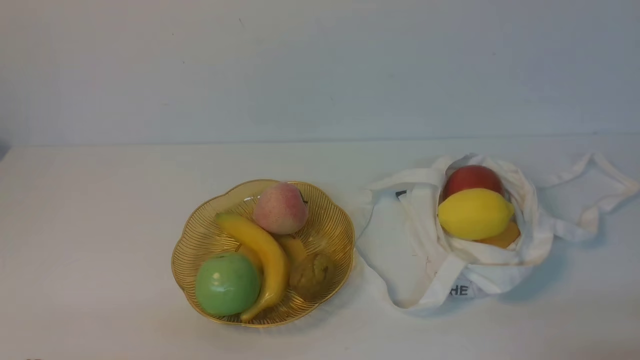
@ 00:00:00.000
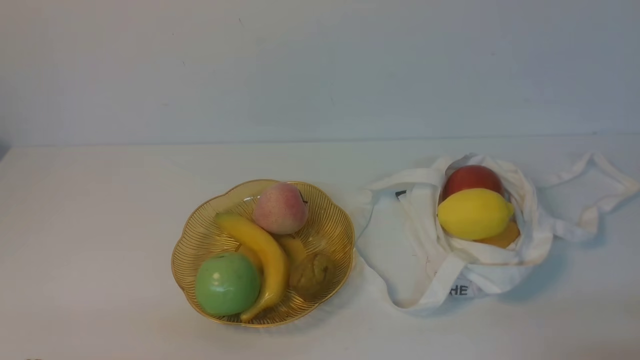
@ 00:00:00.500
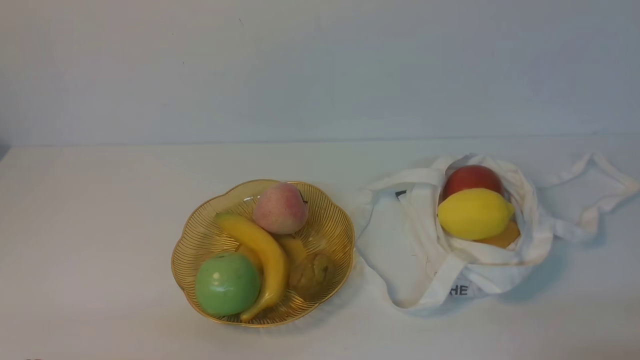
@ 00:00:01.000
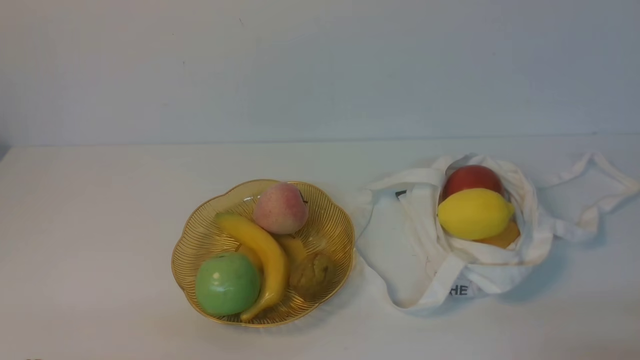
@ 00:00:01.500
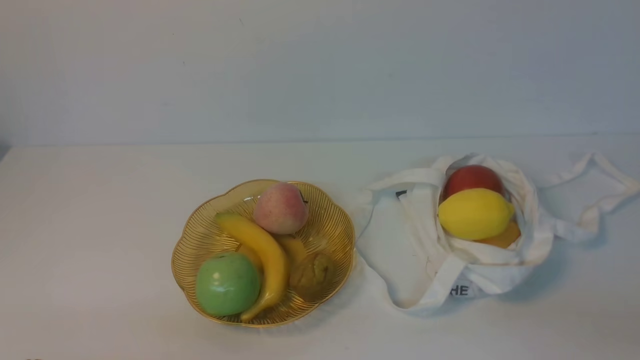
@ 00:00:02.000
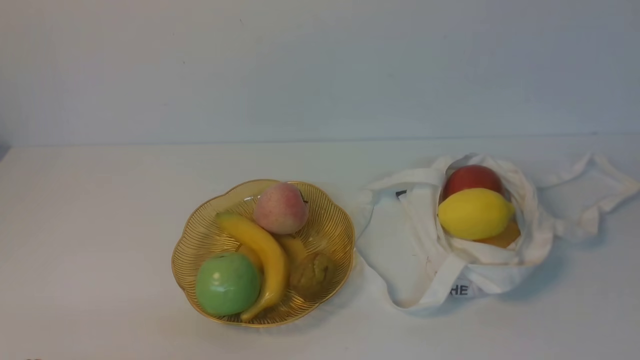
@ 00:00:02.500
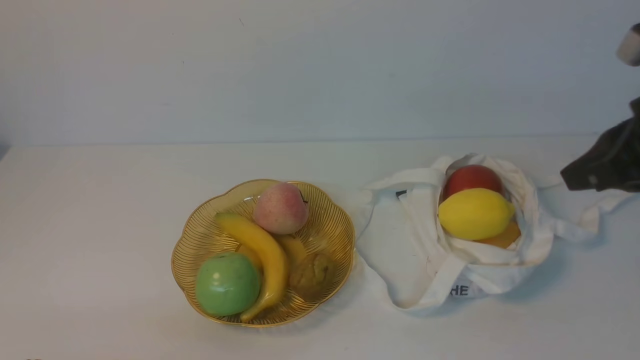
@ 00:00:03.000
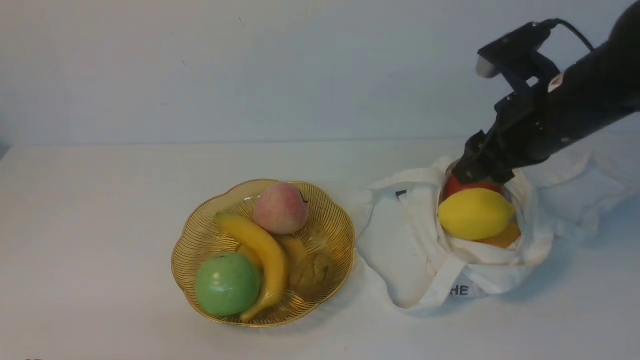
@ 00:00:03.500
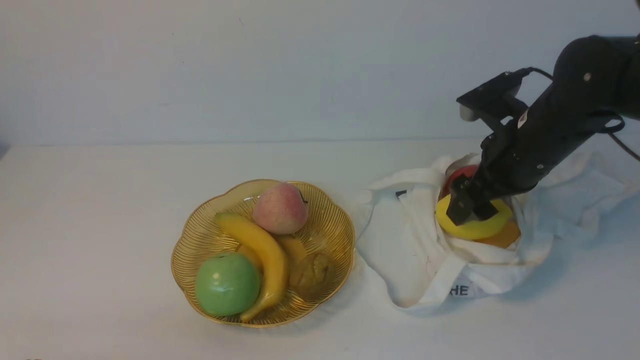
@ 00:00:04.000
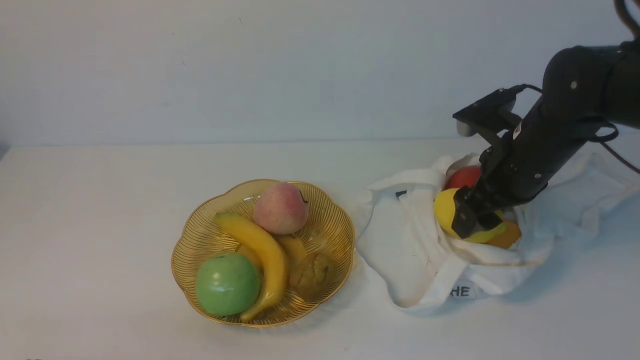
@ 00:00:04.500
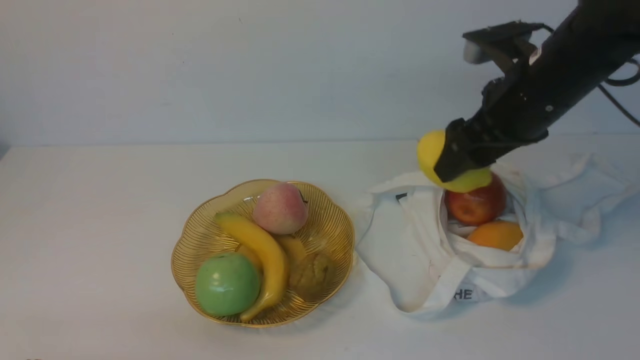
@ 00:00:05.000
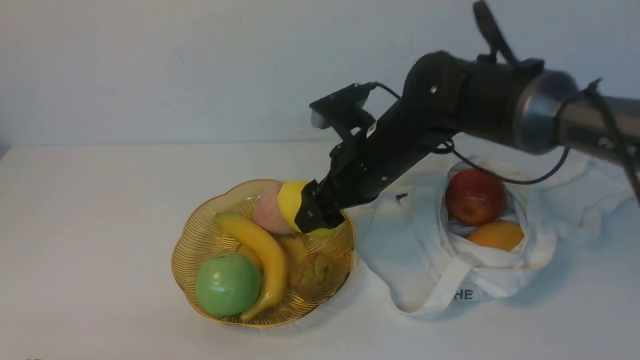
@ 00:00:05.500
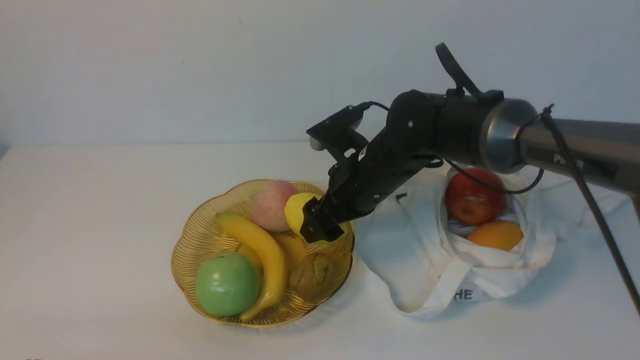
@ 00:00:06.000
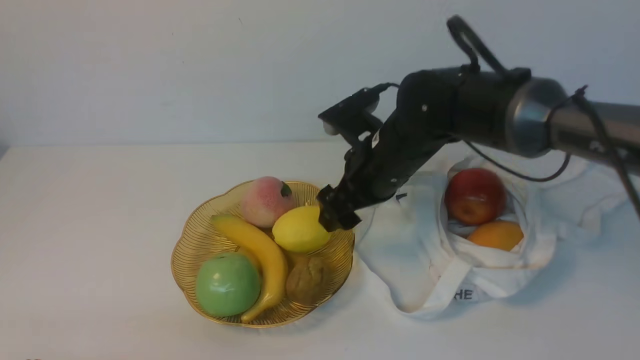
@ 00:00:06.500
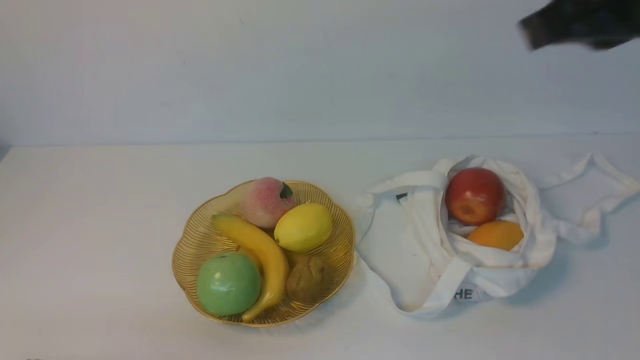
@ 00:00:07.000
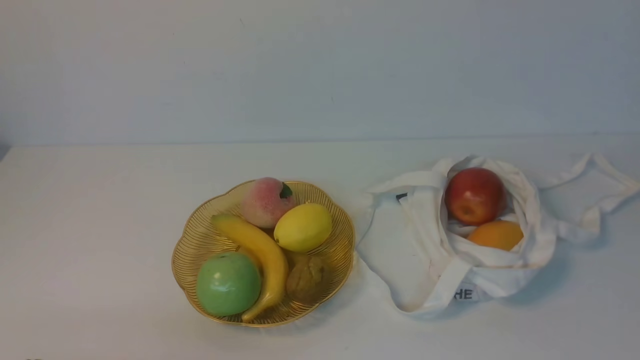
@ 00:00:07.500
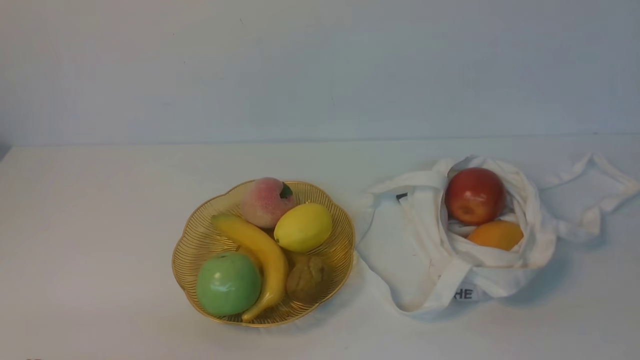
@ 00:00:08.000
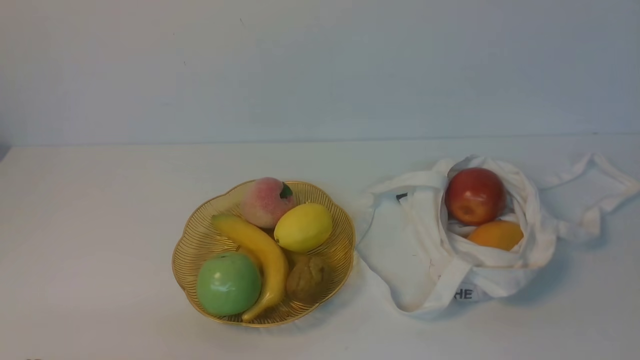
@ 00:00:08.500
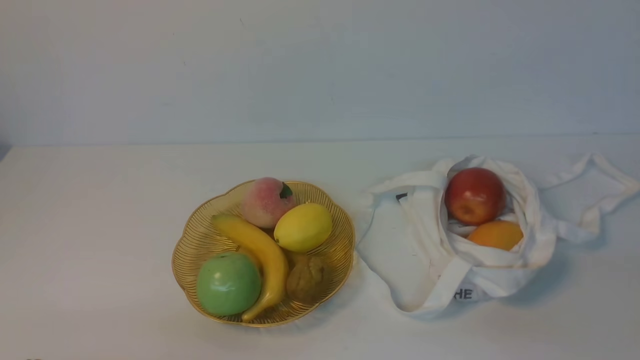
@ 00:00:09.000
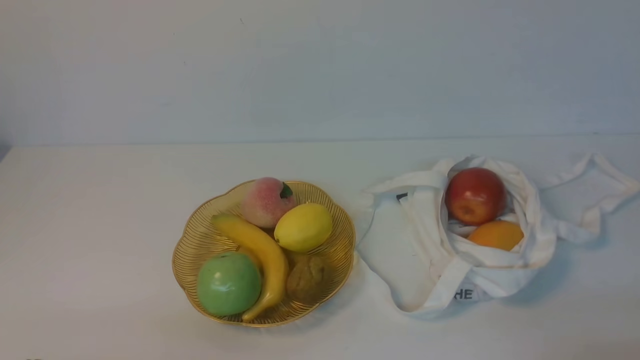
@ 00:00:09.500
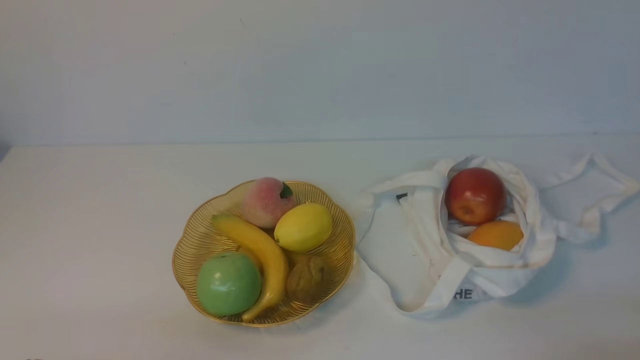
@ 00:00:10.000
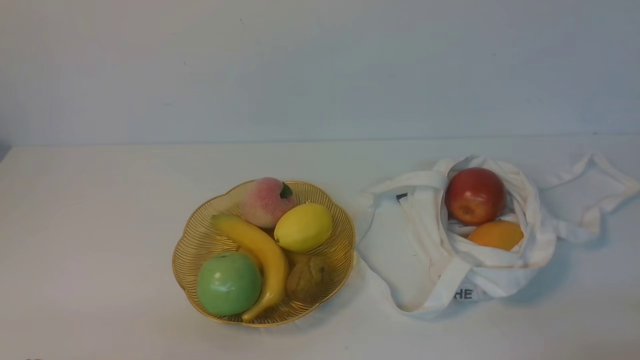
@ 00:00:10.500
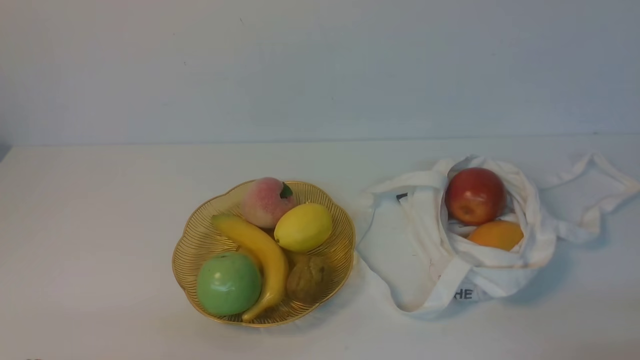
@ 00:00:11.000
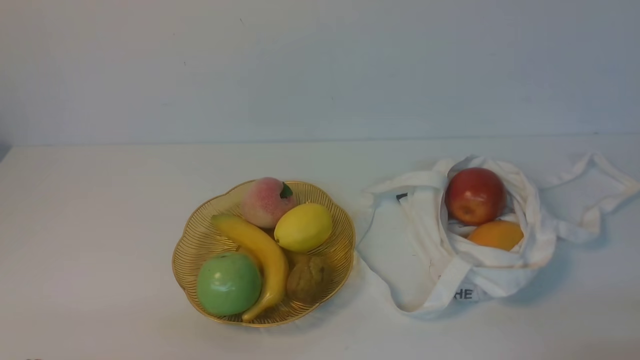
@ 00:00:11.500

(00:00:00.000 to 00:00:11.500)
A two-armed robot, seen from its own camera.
Step, 00:00:00.000 - 00:00:04.500: use the right arm to grab a lemon from the bag.
Step, 00:00:05.000 - 00:00:06.000: use the right arm to put the lemon into the empty plate on the left.
00:00:02.000 - 00:00:04.000: The right gripper is displaced forward by roughly 30 cm, and opens.
00:00:04.000 - 00:00:06.000: The right gripper moves to the left, about 15 cm.
00:00:06.000 - 00:00:07.500: The right gripper heads backward, to the right and upward, covering approximately 40 cm, and closes its fingers.
00:00:09.500 - 00:00:11.500: Both grippers stay about where they are.
